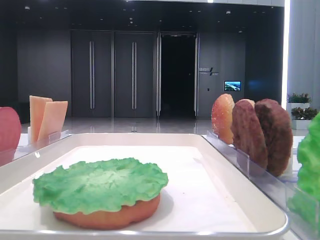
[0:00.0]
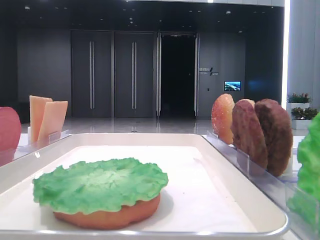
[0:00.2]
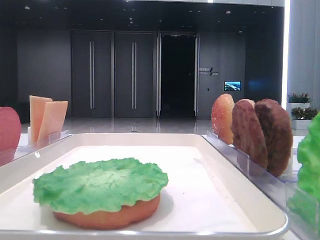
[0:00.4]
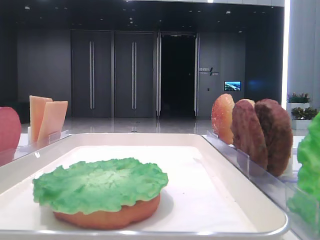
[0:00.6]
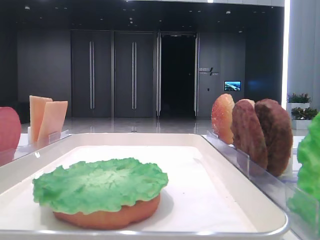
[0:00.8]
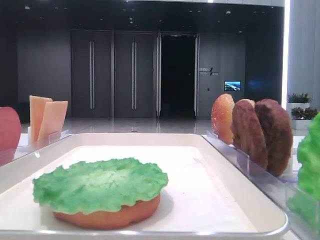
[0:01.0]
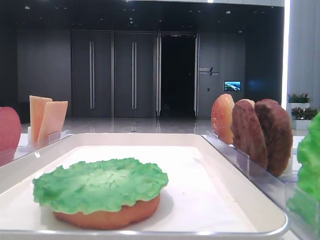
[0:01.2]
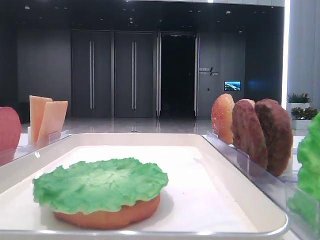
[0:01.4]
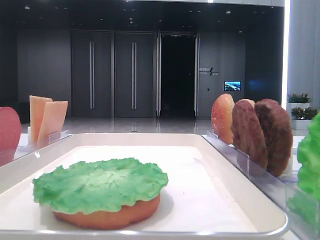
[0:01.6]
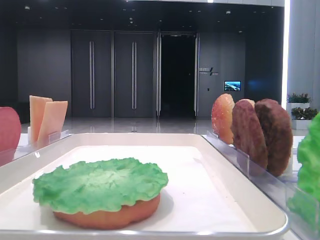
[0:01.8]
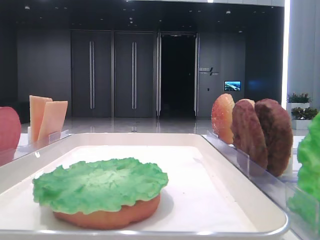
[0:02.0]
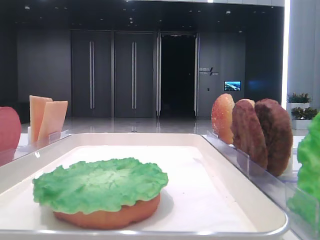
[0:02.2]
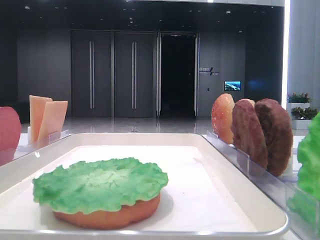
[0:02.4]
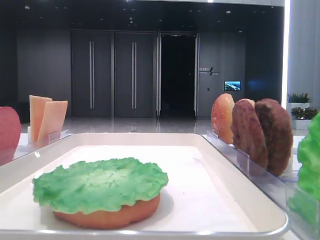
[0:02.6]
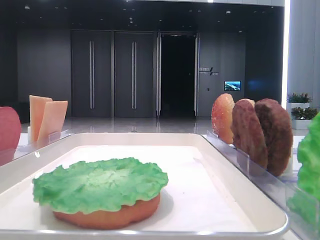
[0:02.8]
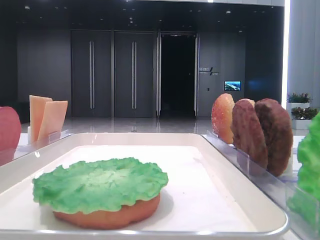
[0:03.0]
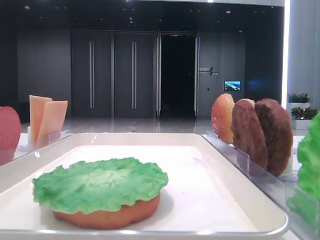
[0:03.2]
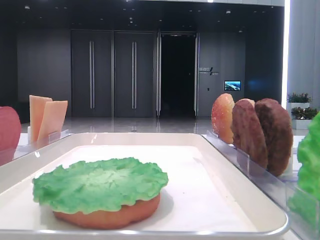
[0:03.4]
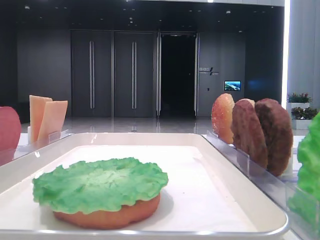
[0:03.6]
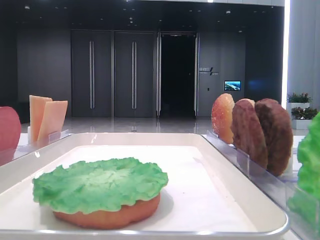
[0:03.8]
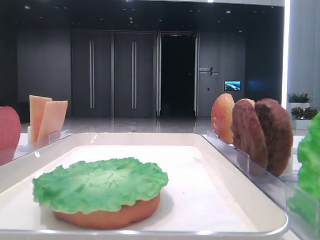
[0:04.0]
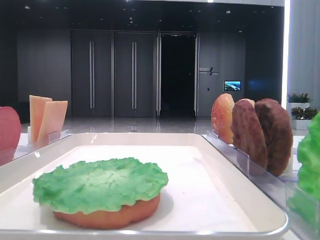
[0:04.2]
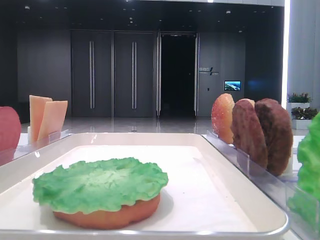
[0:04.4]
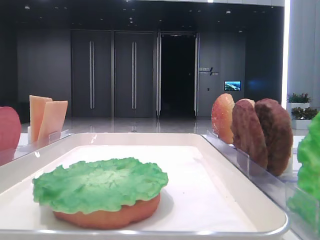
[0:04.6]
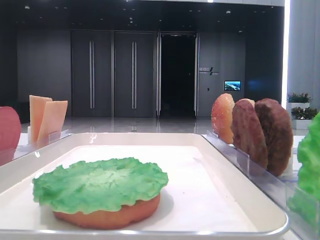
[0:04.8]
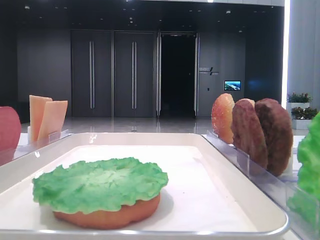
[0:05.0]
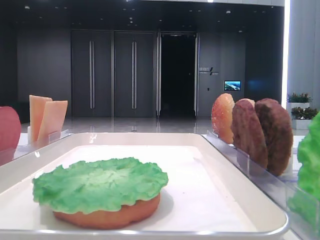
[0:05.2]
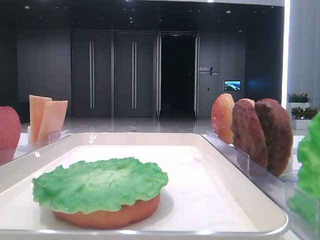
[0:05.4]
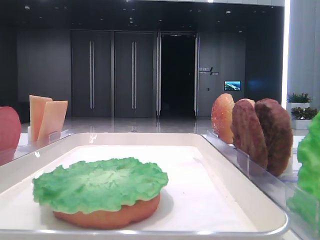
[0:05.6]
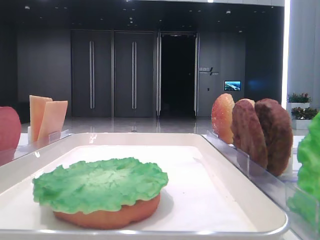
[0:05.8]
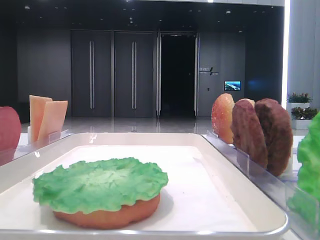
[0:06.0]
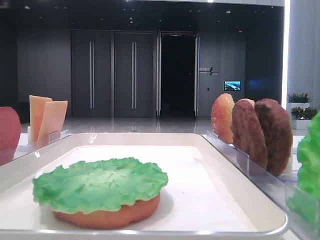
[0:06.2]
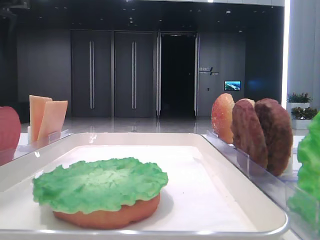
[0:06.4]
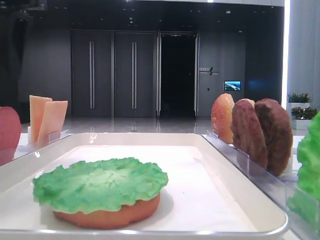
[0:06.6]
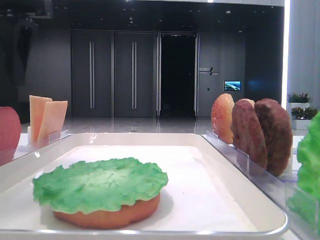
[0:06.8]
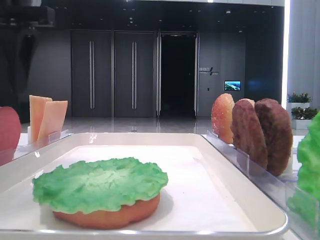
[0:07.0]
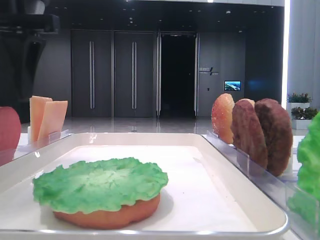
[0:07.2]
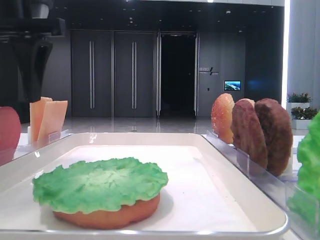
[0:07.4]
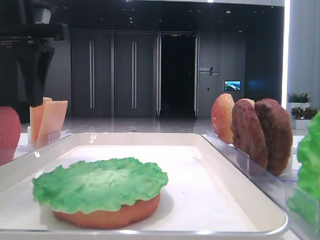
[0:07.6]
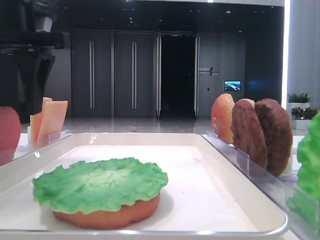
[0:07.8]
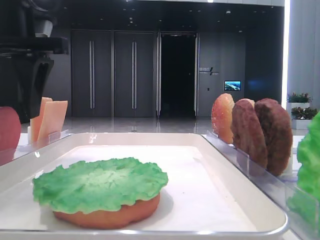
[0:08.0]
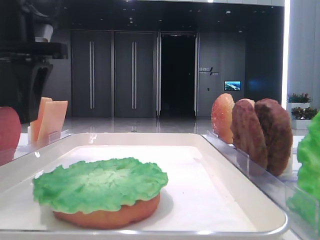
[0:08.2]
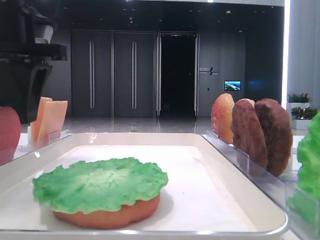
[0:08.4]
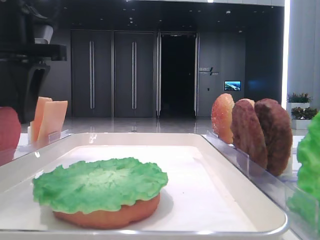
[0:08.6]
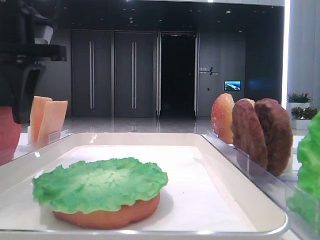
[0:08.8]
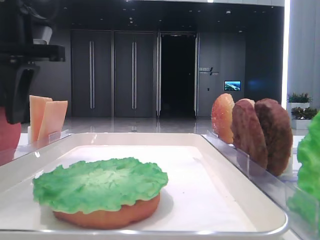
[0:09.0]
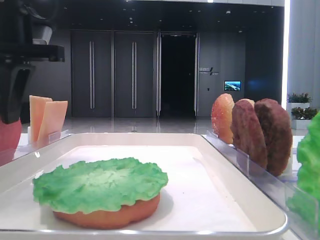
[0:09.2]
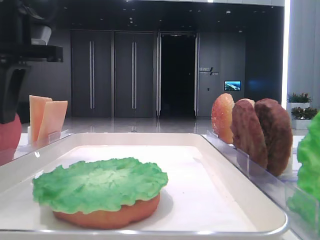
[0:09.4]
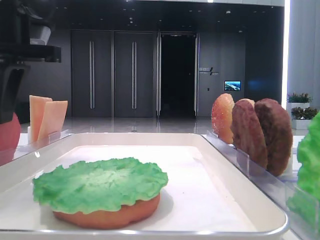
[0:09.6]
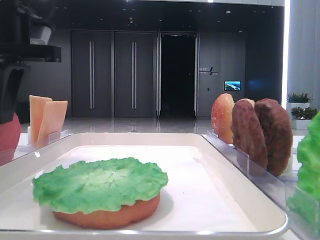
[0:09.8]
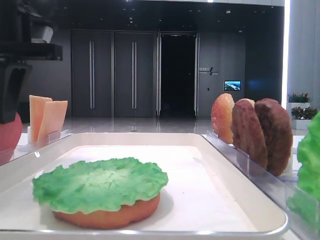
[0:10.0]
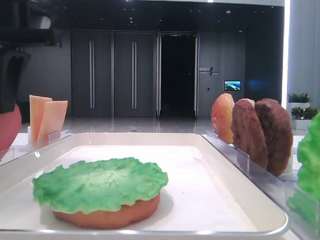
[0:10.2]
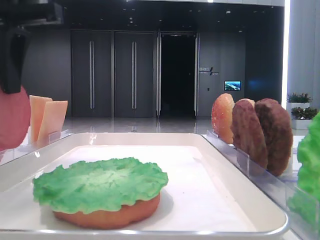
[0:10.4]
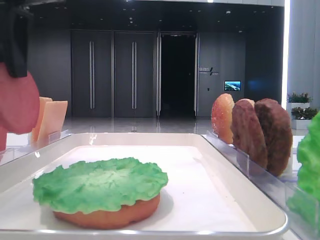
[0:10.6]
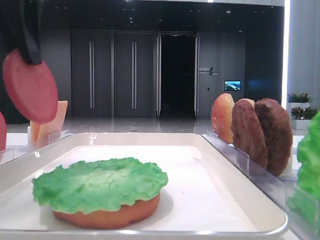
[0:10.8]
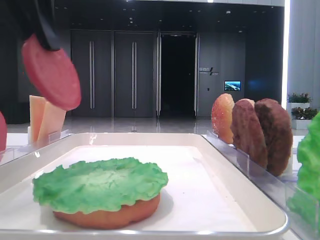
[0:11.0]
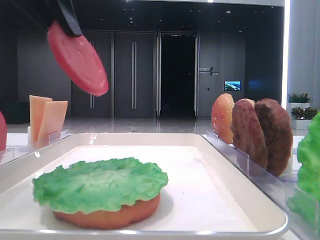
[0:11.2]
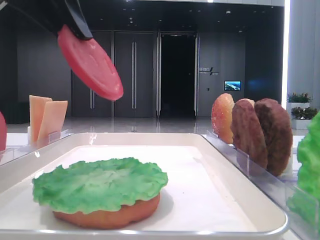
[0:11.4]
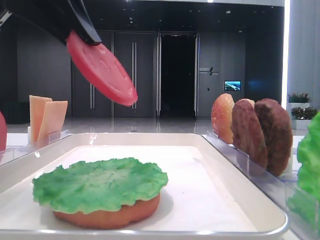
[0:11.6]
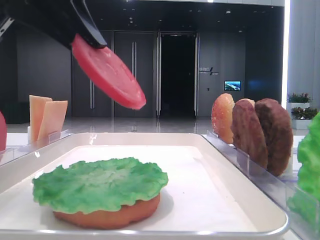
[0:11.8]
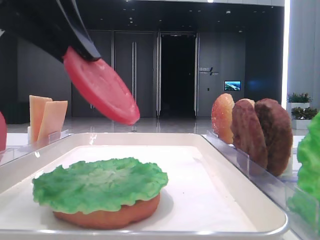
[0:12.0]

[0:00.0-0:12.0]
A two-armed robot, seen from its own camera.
Step, 0:00.0 to 0:09.8: Pick up the tomato slice with the left hand.
0:06.0 to 0:07.6: The left gripper travels to the right by approximately 10 cm.
0:07.6 to 0:09.0: The left gripper closes up.
0:09.0 to 0:10.4: The left gripper closes up.
0:10.4 to 0:12.0: The left gripper moves backward, about 5 cm.

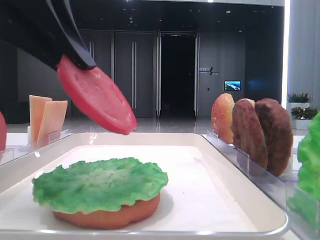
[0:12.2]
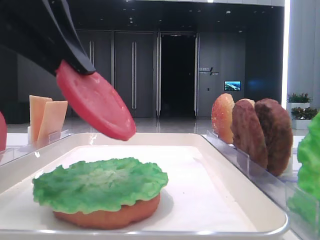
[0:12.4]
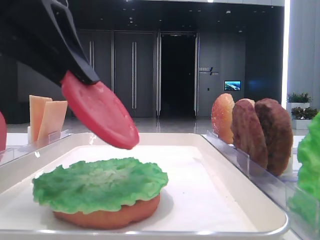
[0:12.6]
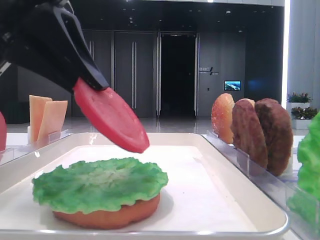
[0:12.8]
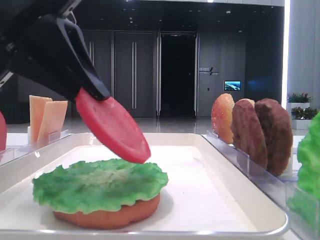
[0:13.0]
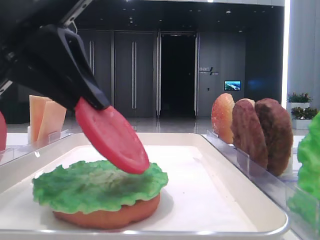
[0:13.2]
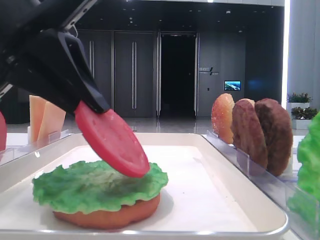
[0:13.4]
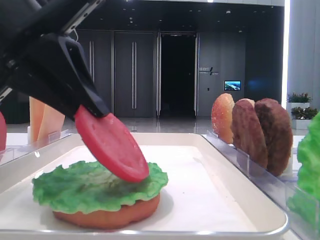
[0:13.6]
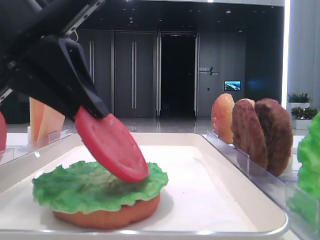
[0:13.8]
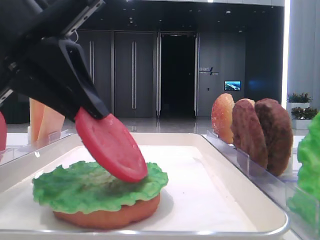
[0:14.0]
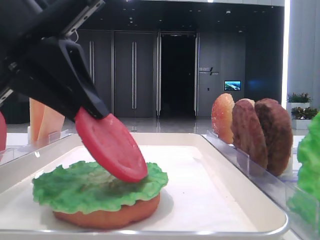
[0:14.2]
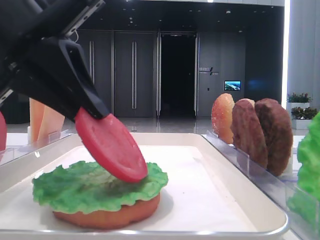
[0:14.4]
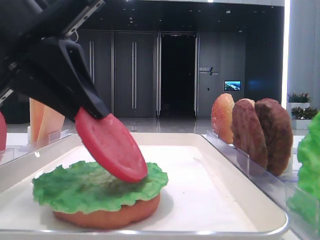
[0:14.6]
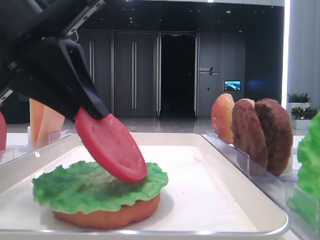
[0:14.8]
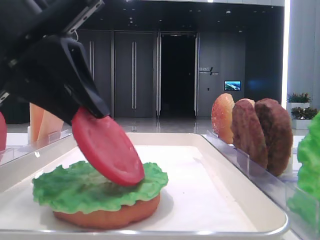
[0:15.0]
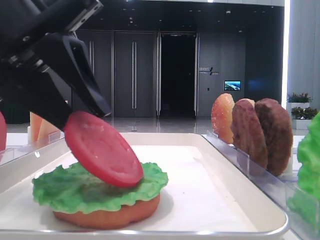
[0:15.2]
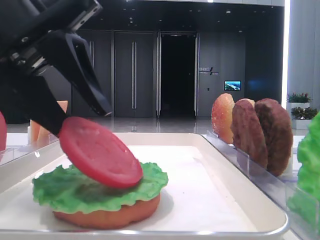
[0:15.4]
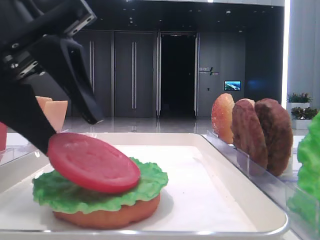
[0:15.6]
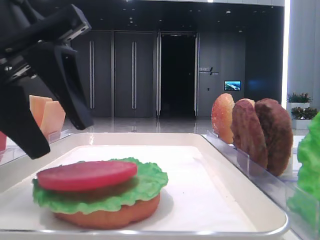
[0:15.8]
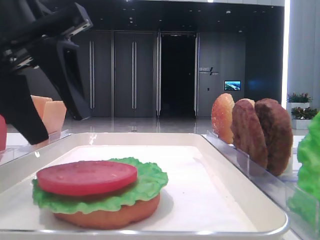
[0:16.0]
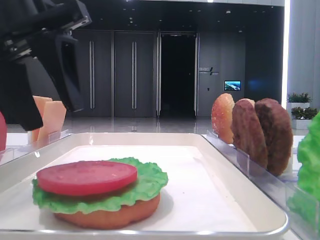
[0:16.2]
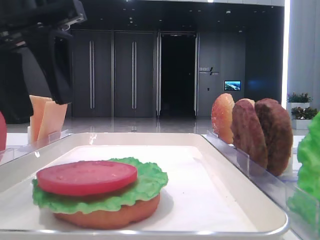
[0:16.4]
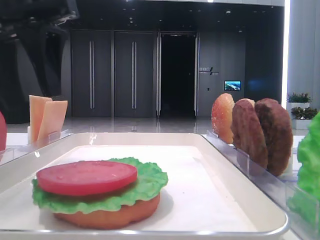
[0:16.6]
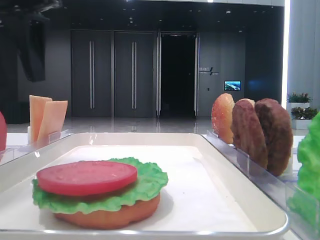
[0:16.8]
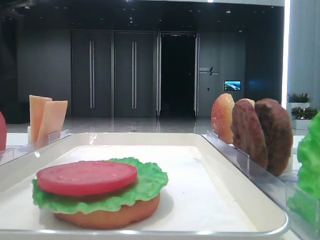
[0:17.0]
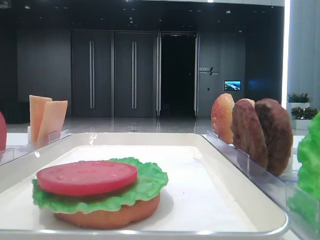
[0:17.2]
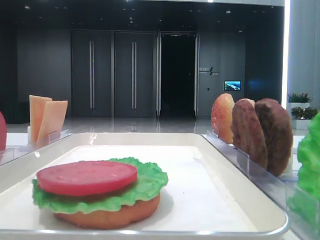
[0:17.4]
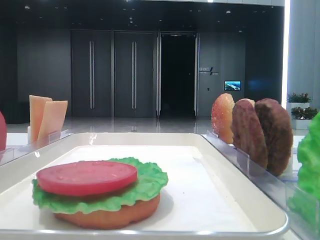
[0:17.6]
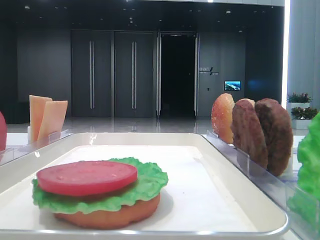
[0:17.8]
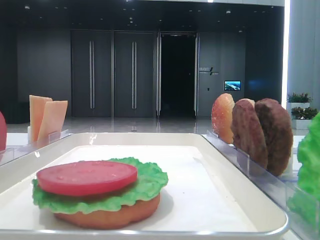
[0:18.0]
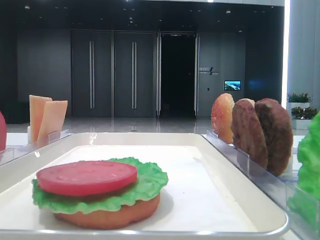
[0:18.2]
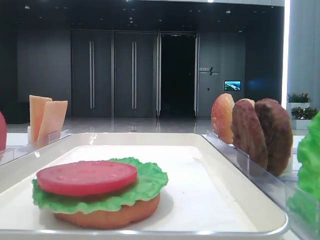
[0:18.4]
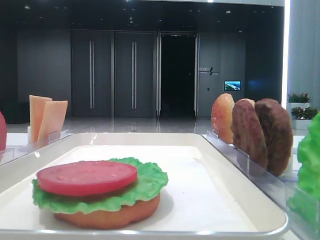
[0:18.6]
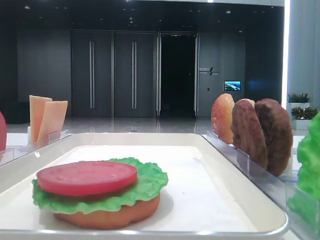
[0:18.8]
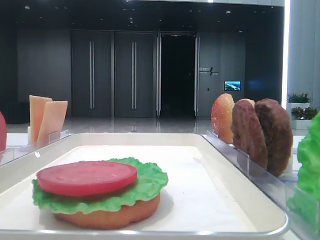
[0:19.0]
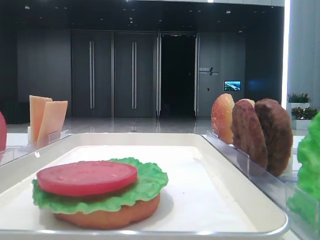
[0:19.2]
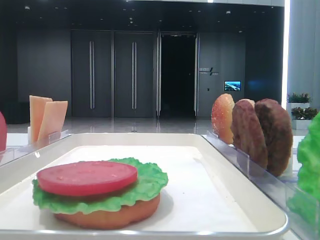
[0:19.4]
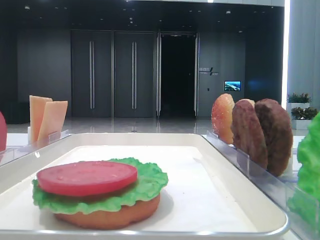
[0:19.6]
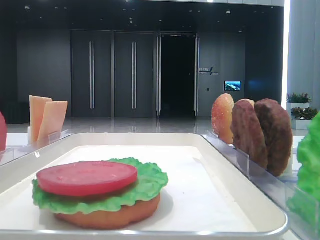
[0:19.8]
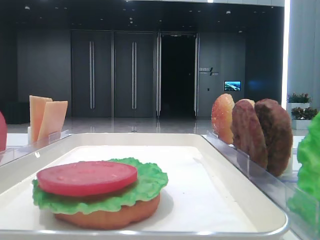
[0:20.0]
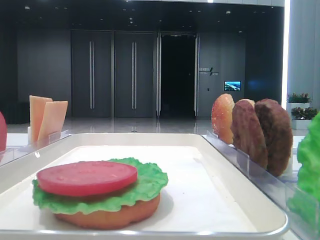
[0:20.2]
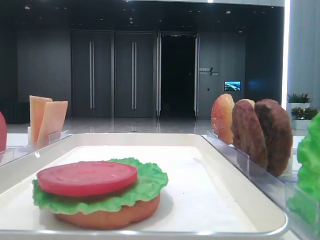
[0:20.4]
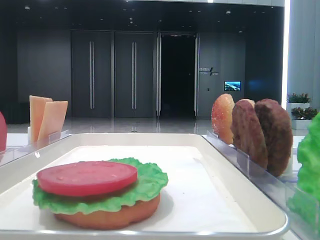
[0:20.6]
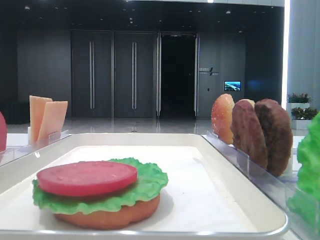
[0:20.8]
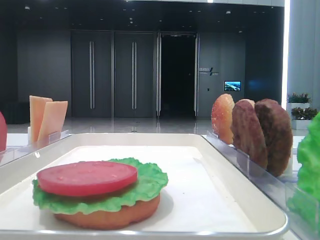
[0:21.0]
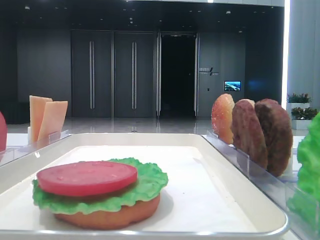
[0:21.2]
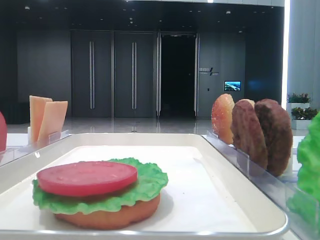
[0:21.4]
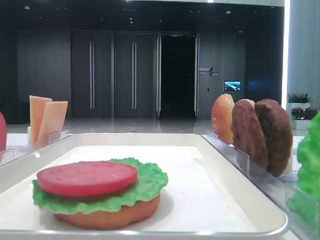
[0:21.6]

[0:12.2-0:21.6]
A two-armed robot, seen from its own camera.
Step, 0:12.2 to 0:15.6: Place the tomato slice on the lettuce leaf with the left hand.
0:12.2 to 0:13.8: The grippers make only small movements.
0:13.8 to 0:15.4: The left gripper opens its fingers.
0:15.4 to 0:17.0: The left gripper shifts some 10 cm upward, to the left and forward.
0:17.0 to 0:18.4: The left gripper shifts roughly 10 cm to the left.

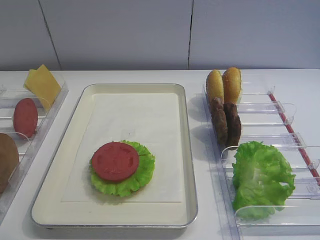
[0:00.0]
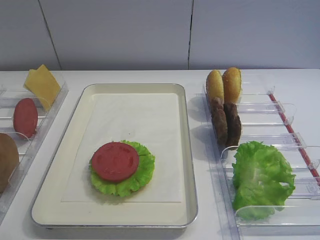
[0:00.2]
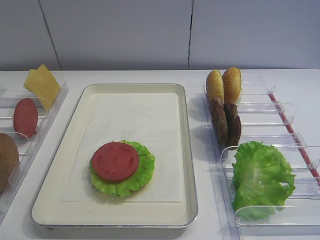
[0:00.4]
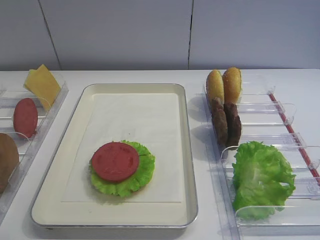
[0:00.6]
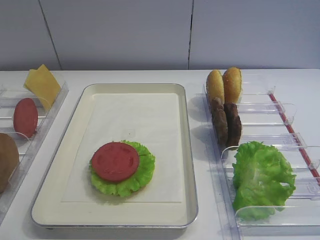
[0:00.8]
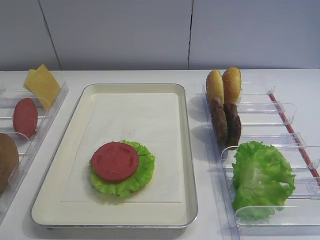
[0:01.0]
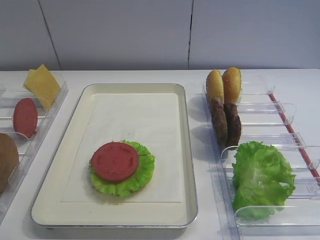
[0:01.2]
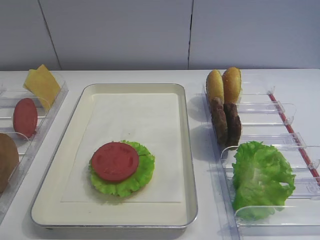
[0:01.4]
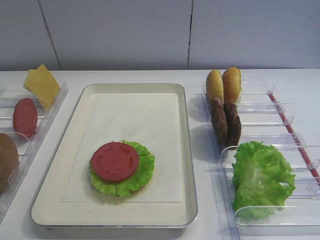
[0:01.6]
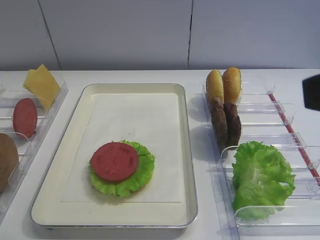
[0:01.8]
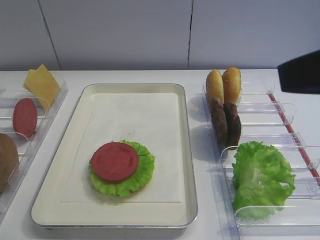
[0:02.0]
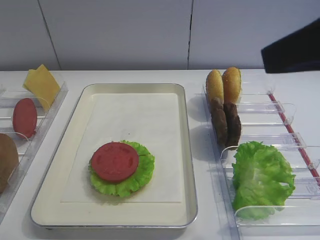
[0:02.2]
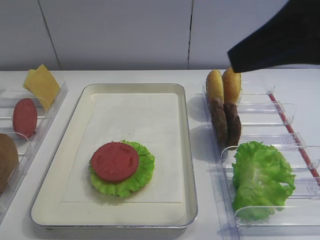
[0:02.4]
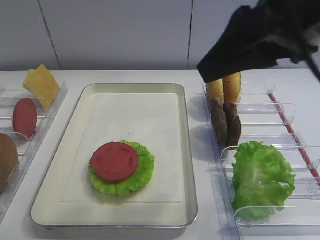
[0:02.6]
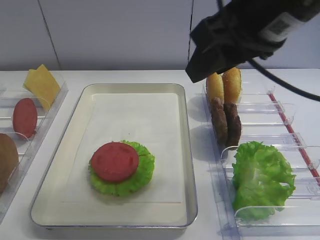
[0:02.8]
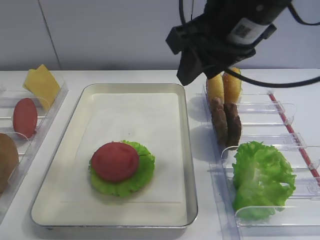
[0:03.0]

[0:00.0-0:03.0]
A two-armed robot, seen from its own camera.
0:01.6 to 0:03.0: The right gripper travels forward and to the left by about 25 cm.
